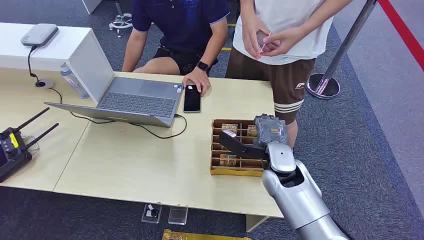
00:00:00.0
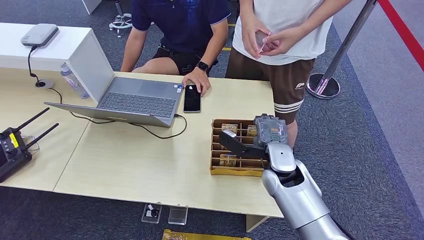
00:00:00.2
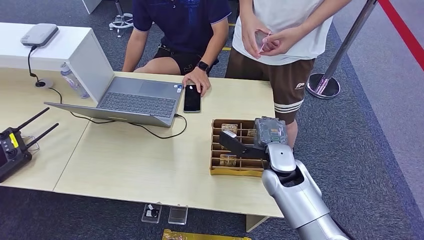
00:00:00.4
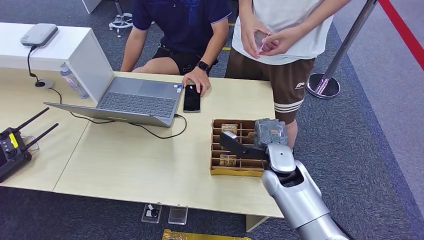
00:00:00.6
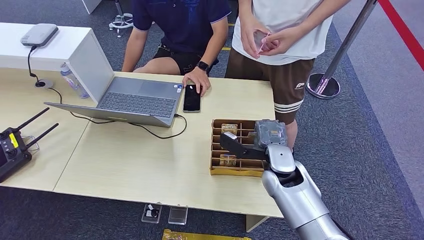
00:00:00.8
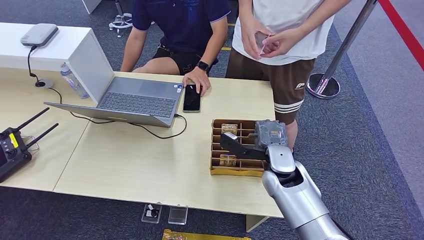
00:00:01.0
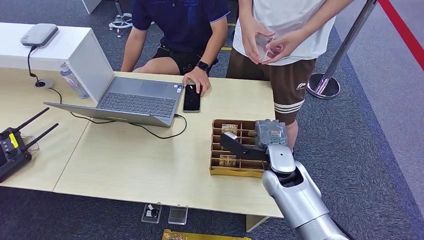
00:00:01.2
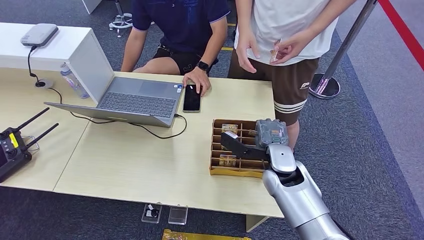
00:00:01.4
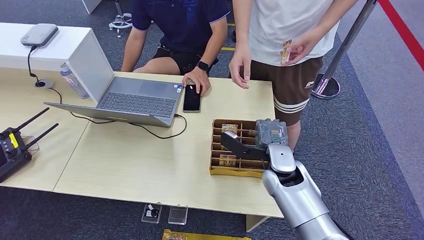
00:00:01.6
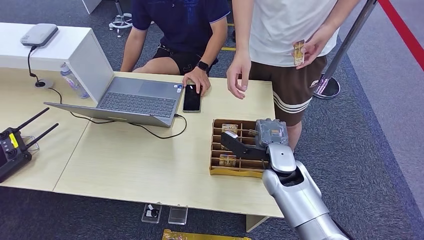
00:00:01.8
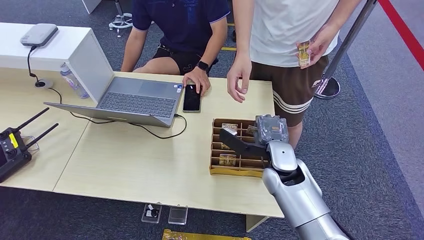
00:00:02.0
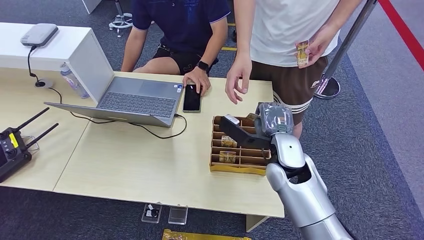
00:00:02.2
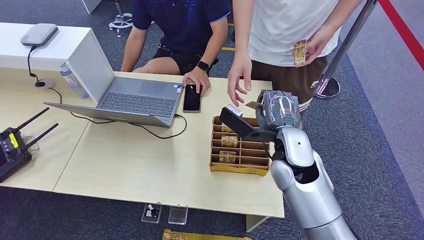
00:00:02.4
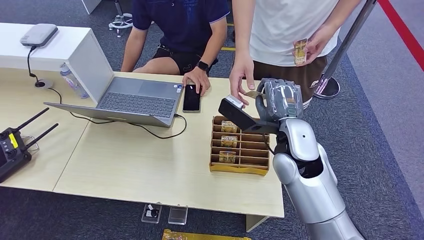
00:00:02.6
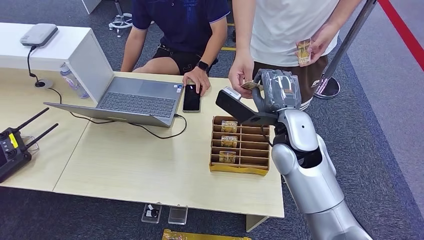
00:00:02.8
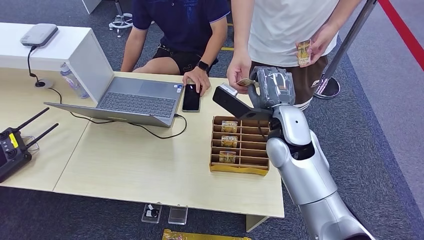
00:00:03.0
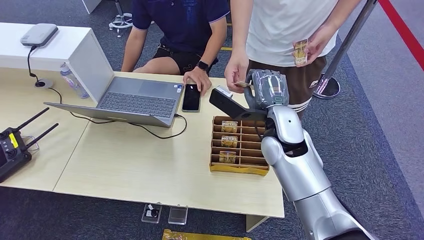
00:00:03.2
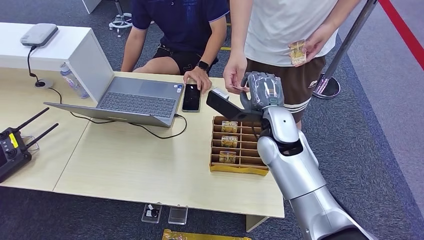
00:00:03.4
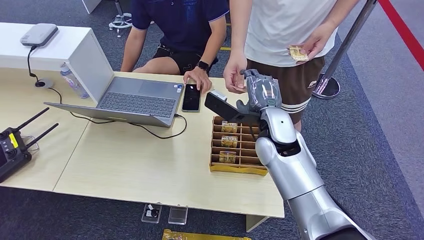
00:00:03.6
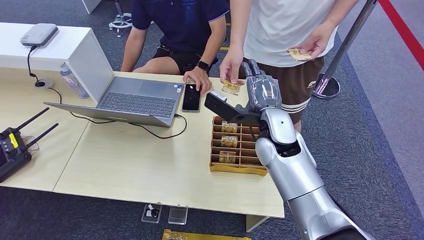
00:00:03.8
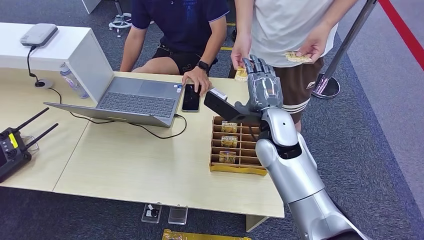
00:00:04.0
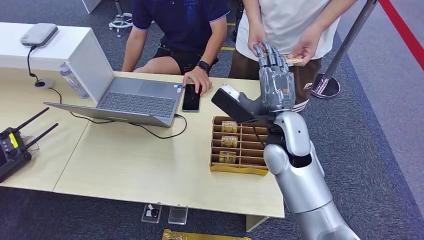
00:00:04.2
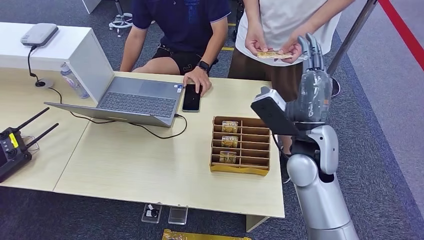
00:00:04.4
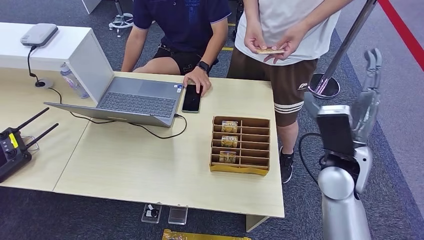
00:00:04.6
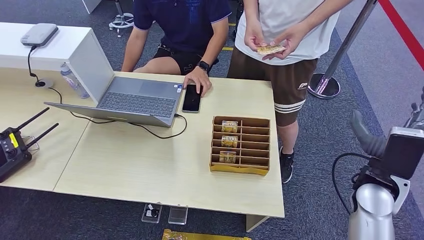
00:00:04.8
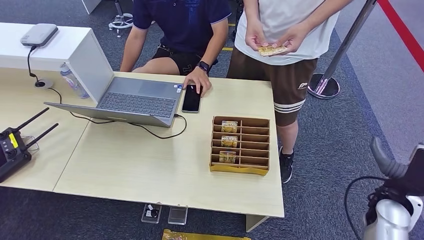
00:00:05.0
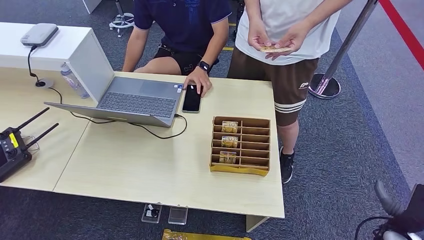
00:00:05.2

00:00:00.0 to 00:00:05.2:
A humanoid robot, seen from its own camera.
Step, 00:00:00.0 to 00:00:02.6: Pick up the key card from the card box.
Step, 00:00:02.8 to 00:00:05.2: Hand the key card to the target.
00:00:01.8 to 00:00:03.4: The right hand heads upward, covering some 10 cm.
00:00:03.4 to 00:00:05.2: The right hand travels to the right, downward and backward by approximately 40 cm.
